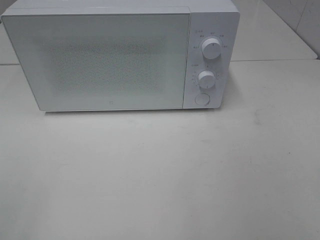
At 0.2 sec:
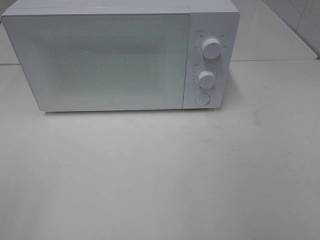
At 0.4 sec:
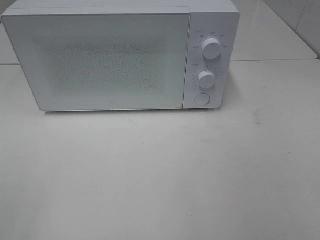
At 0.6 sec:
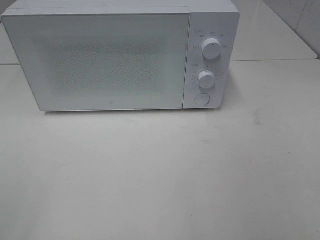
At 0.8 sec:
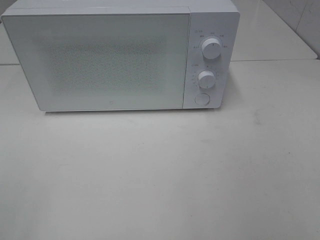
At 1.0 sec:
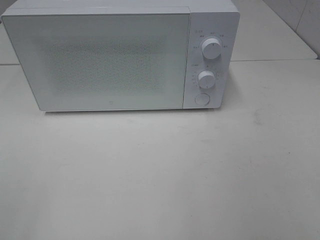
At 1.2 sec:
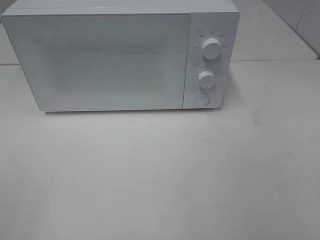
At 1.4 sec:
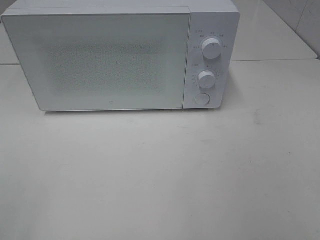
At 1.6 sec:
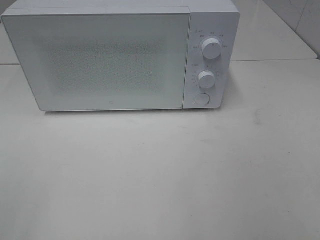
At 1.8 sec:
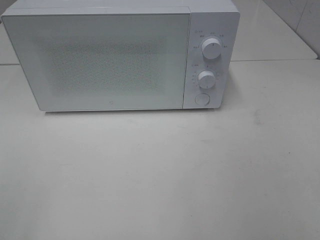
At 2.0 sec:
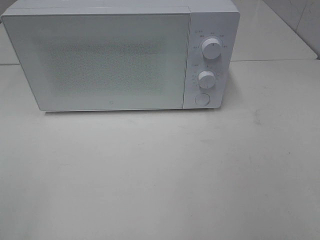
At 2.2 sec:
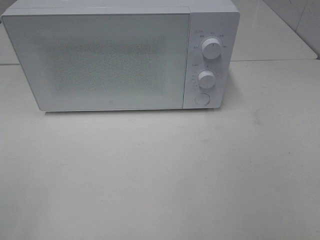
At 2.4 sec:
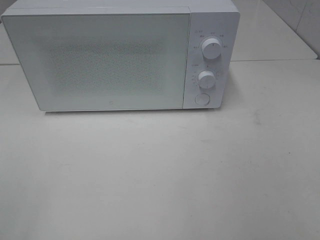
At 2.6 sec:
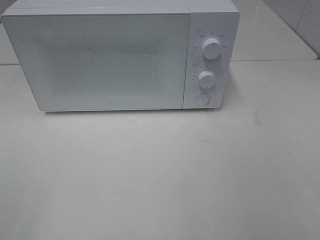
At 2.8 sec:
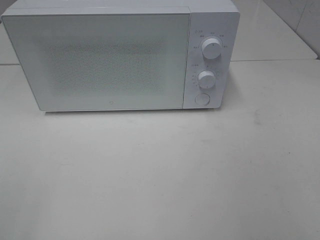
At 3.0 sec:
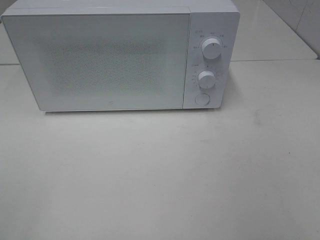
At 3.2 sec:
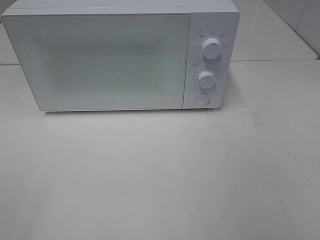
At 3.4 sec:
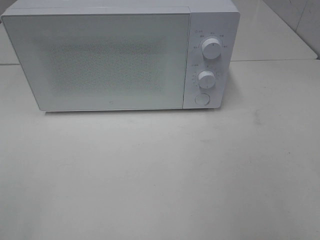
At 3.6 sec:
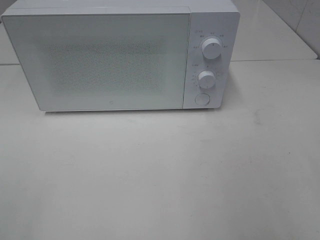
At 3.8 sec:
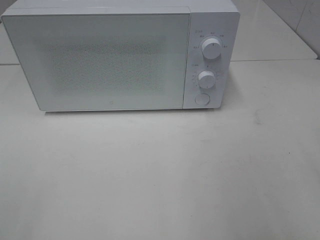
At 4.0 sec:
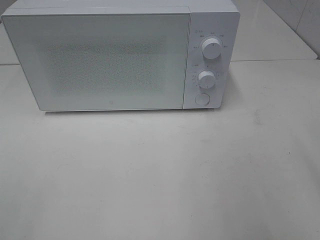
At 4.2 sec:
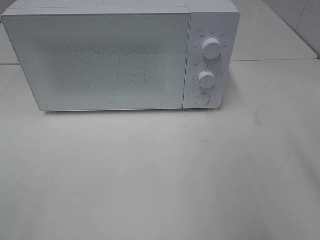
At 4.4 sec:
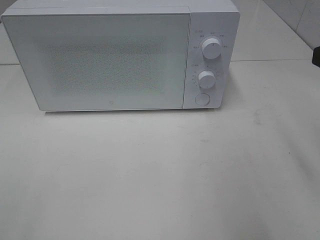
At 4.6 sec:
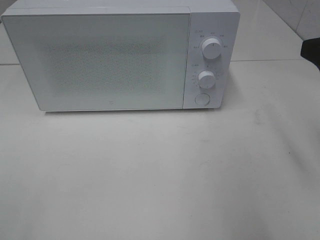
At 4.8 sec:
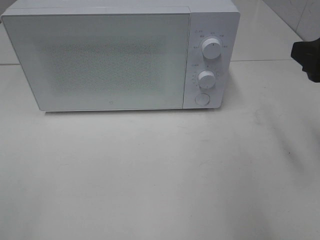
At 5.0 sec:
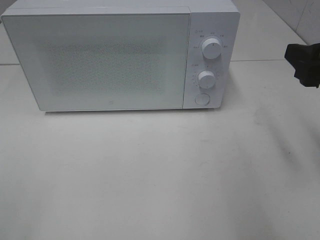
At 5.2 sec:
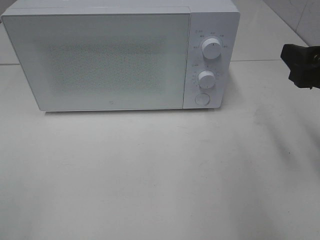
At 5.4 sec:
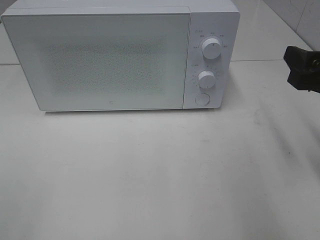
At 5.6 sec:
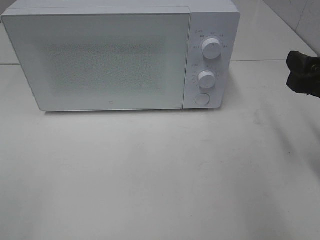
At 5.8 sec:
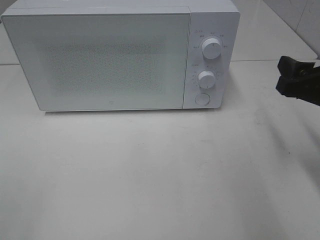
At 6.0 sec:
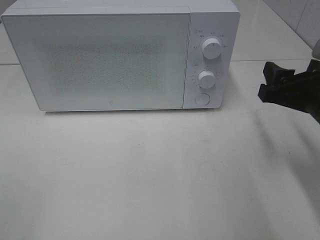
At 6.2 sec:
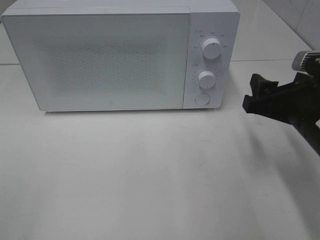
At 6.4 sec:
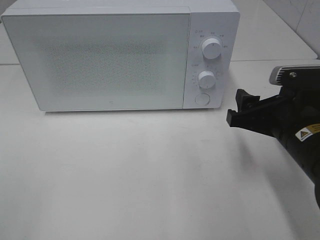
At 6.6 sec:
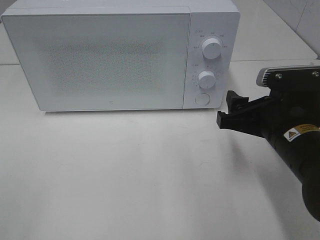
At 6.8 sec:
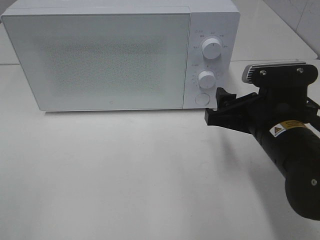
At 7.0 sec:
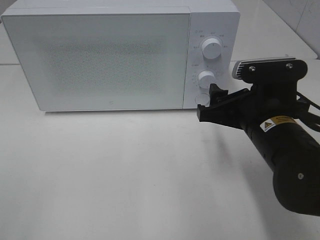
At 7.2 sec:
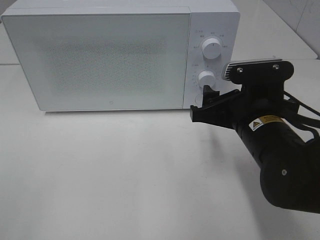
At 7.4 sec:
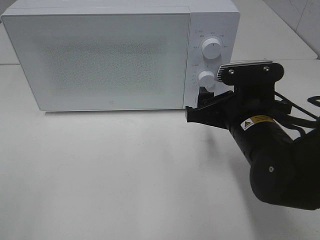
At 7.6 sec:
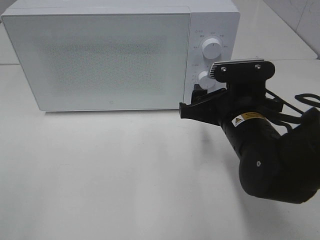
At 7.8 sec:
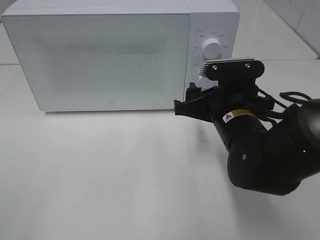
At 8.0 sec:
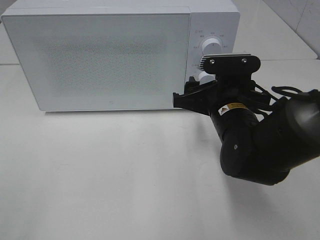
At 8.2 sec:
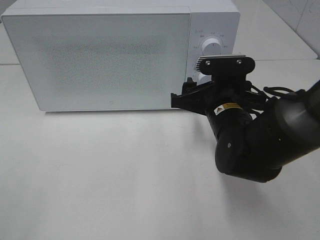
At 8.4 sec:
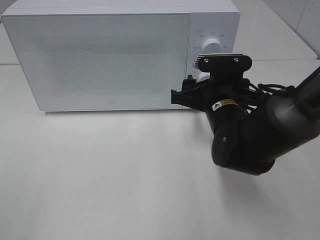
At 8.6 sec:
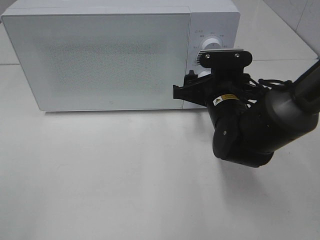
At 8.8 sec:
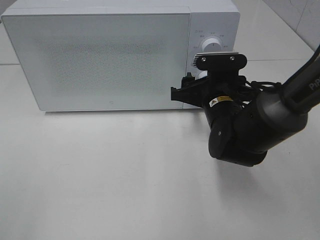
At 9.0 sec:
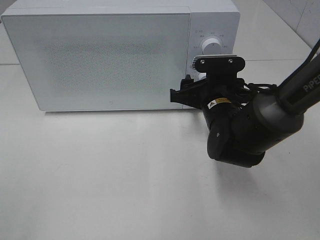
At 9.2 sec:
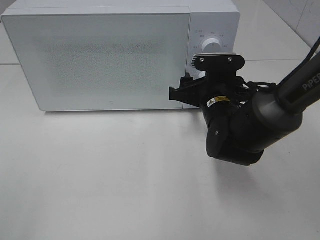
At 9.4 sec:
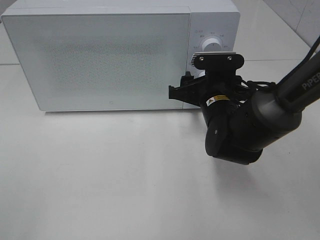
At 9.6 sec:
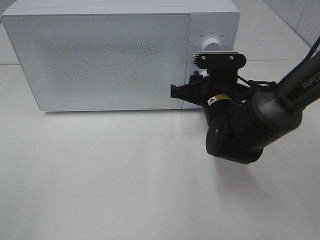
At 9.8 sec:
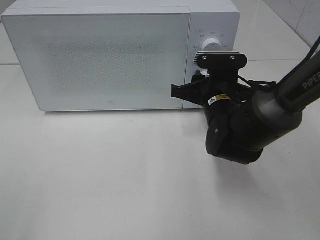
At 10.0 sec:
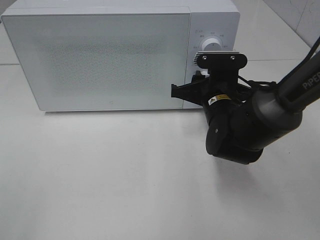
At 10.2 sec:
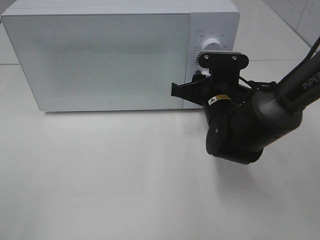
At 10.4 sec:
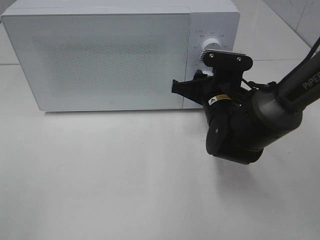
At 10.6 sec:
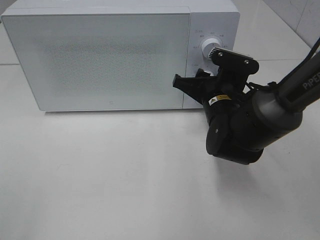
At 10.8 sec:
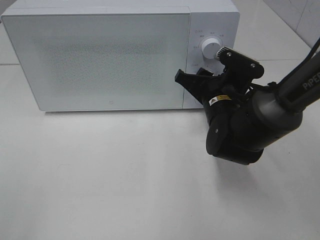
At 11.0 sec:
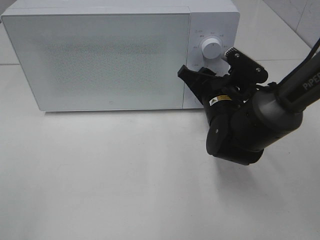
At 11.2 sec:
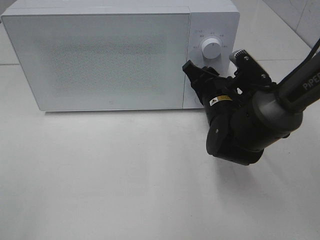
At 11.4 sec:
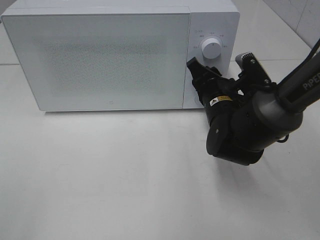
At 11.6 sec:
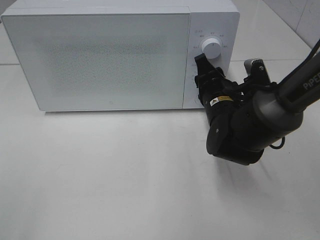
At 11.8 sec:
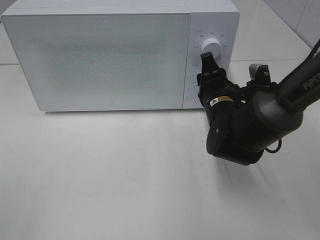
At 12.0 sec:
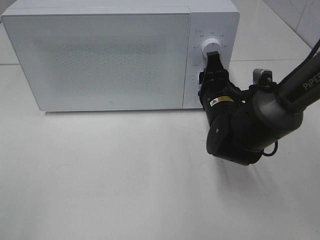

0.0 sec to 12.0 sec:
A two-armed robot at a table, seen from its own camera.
Task of the whole recording: Heat the burger.
0.0 sec to 1.6 sec: The two grippers keep their place.
4.4 sec to 6.0 sec: The right gripper heads downward, covering about 10 cm.
6.0 sec to 7.6 sec: The right gripper travels to the left by some 10 cm.
7.6 sec to 9.0 sec: The right gripper moves forward, some 5 cm.
9.0 sec to 10.4 sec: The grippers make only small movements.

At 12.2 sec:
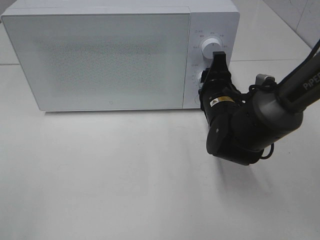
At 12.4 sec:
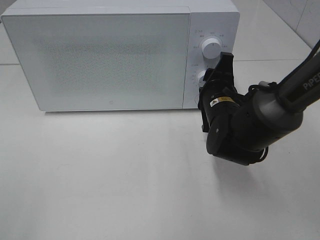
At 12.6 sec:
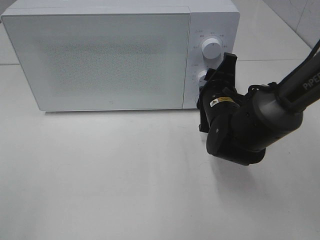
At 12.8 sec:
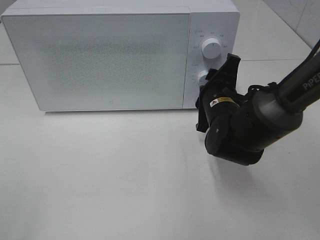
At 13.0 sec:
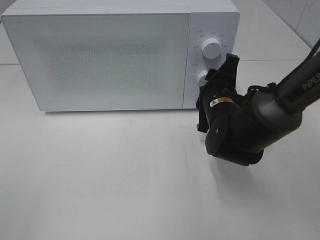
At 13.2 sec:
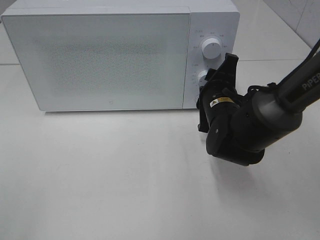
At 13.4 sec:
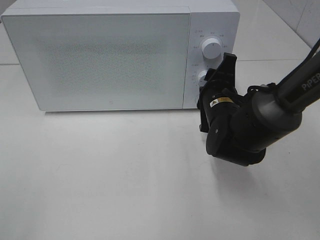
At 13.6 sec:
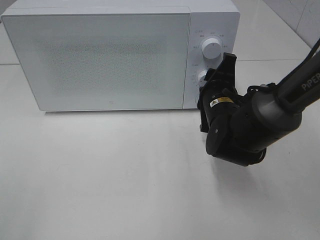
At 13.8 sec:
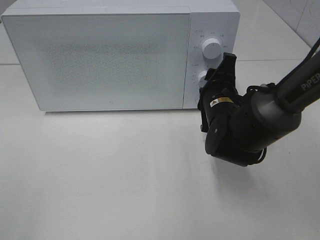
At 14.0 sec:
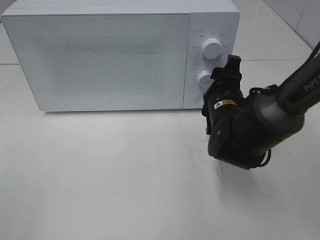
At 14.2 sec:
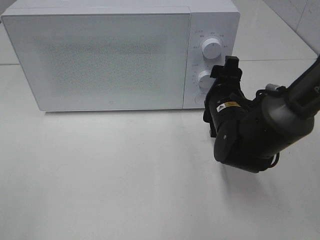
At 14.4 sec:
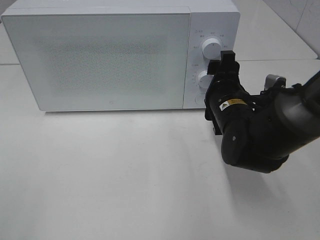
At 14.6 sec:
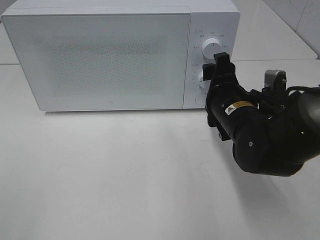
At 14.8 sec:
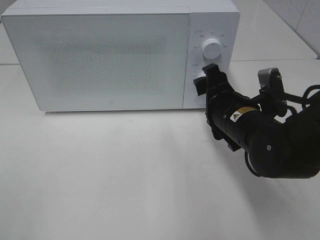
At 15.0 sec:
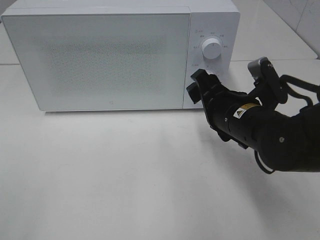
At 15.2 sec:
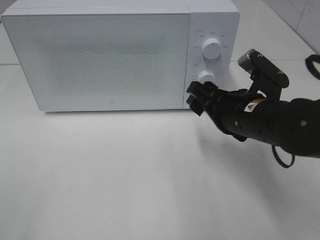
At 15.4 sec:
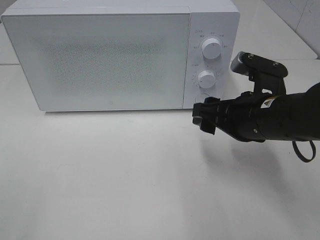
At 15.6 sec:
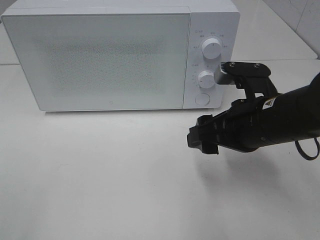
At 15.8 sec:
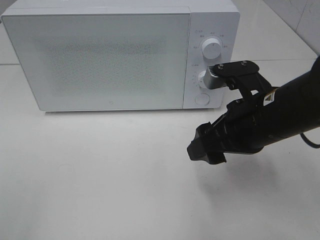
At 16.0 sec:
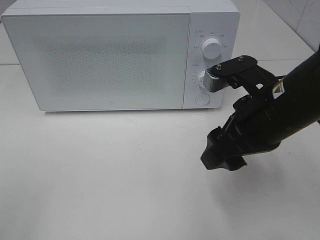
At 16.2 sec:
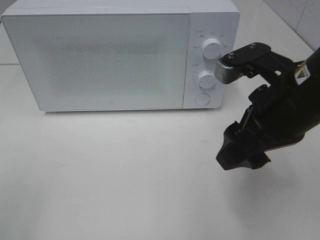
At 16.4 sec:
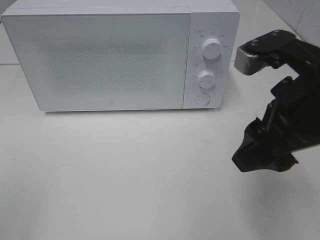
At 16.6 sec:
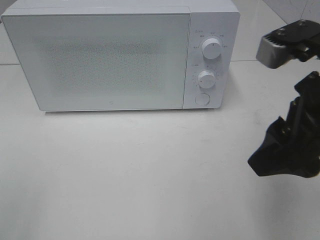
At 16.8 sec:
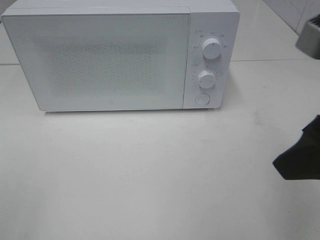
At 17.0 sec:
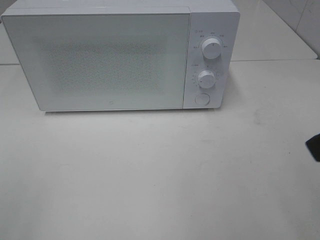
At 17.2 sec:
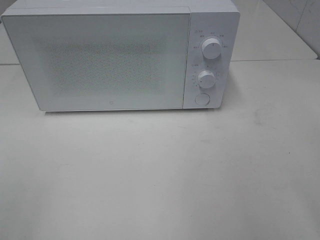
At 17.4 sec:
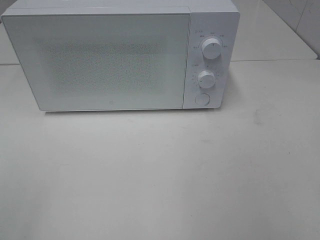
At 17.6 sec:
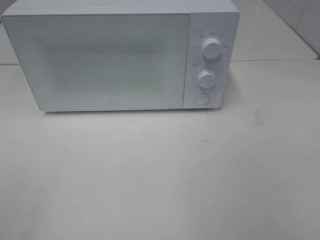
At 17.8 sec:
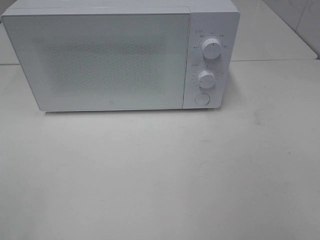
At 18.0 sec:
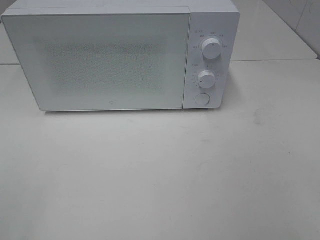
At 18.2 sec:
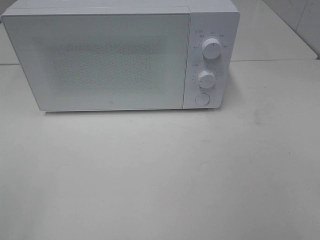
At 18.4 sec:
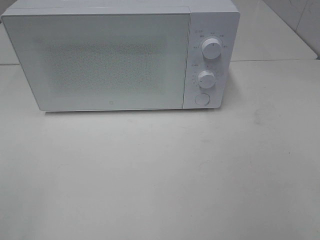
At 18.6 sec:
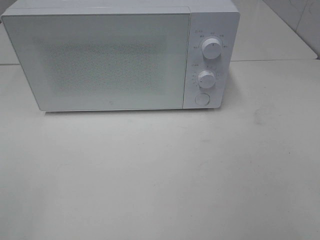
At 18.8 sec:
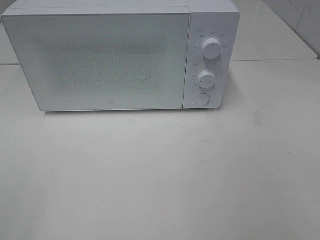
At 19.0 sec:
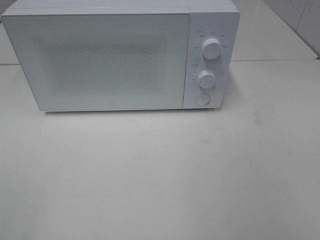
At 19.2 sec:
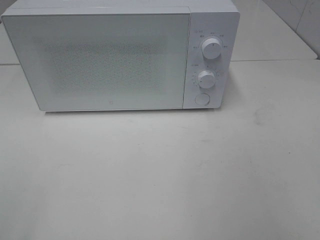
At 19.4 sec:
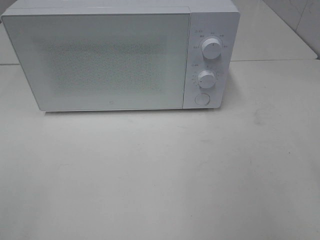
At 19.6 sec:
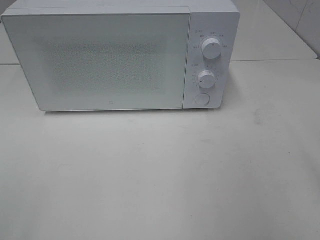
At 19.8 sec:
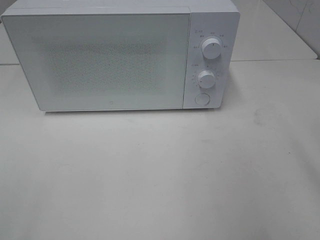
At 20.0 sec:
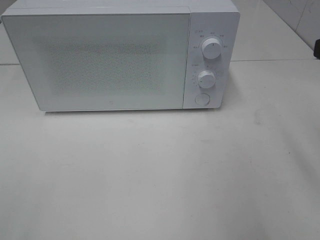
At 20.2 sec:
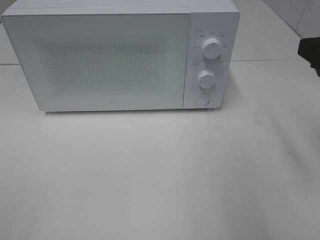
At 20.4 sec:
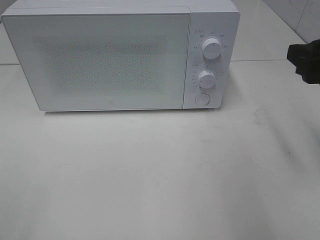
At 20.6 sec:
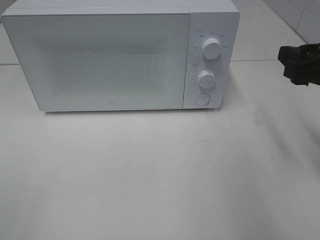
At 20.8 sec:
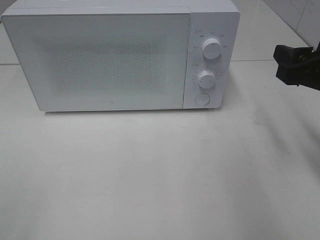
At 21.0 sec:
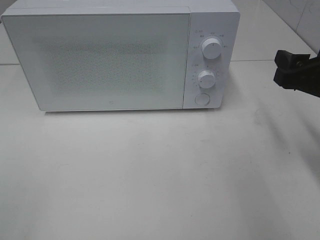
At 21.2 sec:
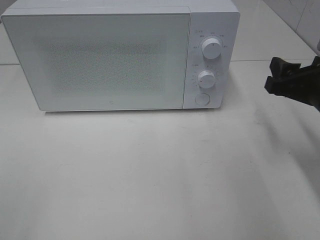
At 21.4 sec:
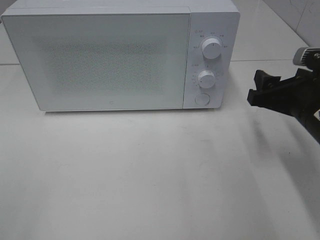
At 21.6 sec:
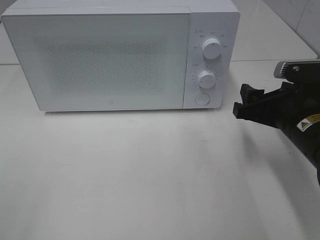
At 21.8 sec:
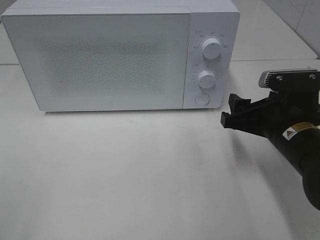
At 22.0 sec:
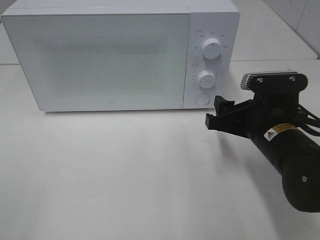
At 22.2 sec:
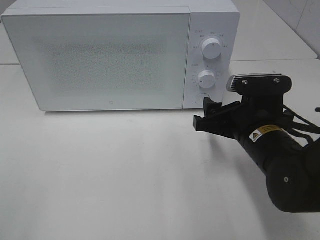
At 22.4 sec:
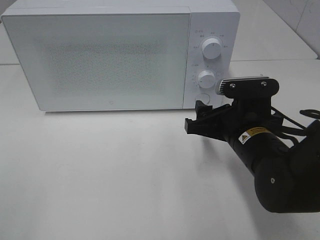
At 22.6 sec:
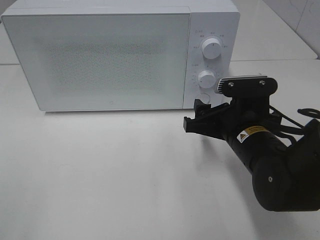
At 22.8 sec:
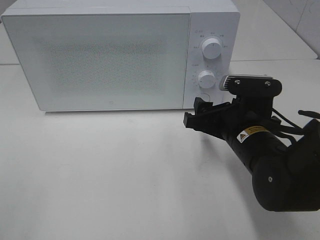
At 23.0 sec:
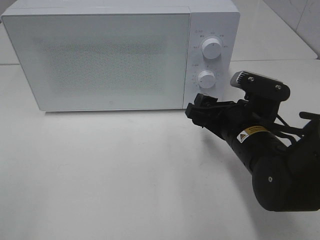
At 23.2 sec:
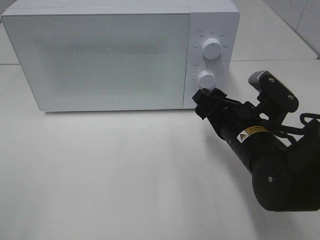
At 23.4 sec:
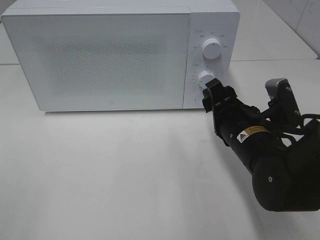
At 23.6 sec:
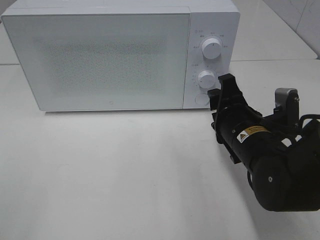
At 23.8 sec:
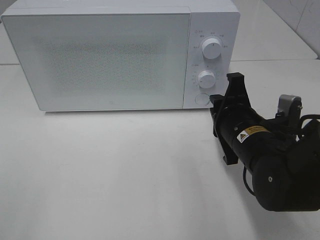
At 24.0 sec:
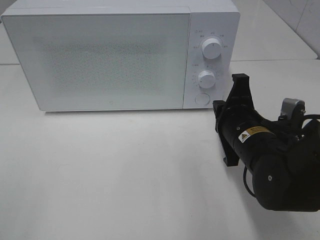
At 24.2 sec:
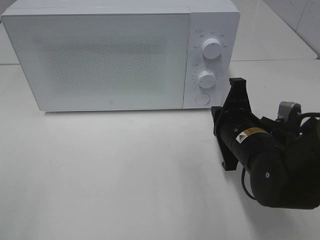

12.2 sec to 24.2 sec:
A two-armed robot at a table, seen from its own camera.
Task of the whole recording: Heat the burger.
12.2 sec to 13.8 sec: The grippers stay close to where they were, moving slightly.
13.8 sec to 15.2 sec: The right gripper is displaced backward by approximately 5 cm.
15.2 sec to 16.6 sec: The right gripper shifts some 15 cm upward and backward.
16.6 sec to 18.2 sec: The right gripper heads backward and to the right, covering some 20 cm.
19.8 sec to 21.2 sec: The right gripper travels downward and forward by some 15 cm.
21.2 sec to 22.6 sec: The right gripper shifts roughly 15 cm to the left and downward.
22.6 sec to 24.2 sec: The right gripper closes its fingers.
